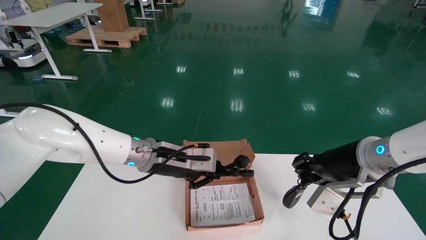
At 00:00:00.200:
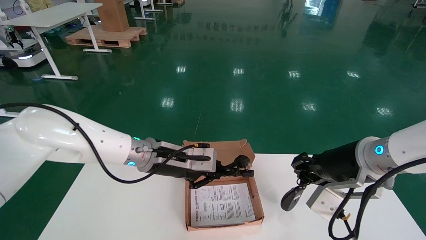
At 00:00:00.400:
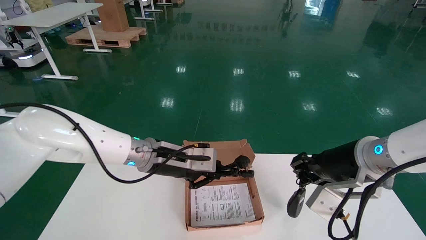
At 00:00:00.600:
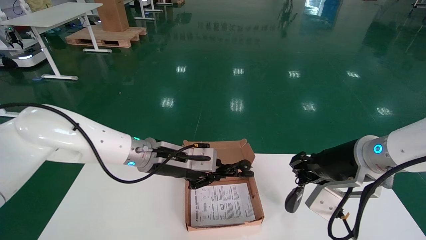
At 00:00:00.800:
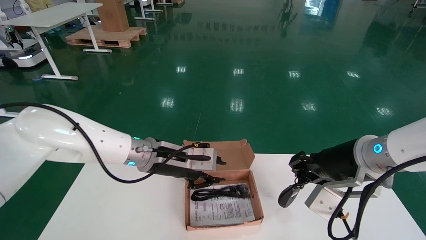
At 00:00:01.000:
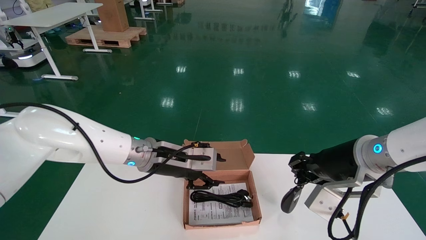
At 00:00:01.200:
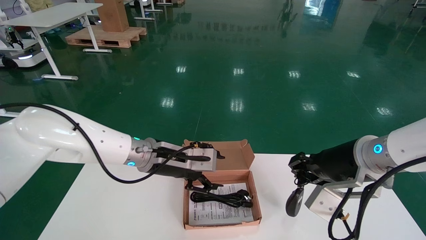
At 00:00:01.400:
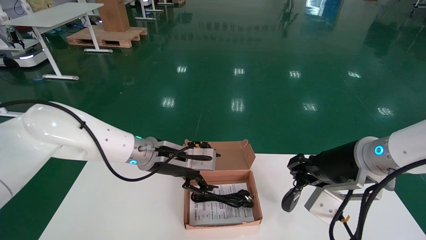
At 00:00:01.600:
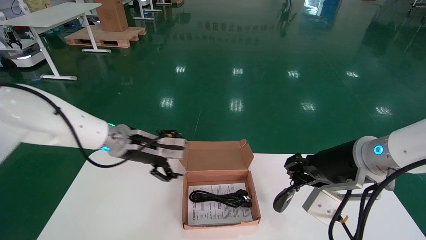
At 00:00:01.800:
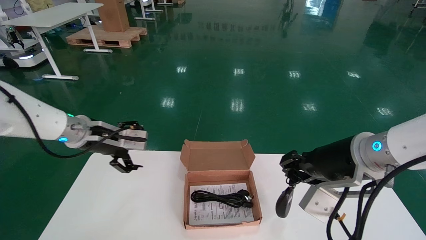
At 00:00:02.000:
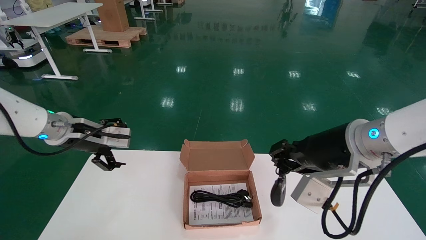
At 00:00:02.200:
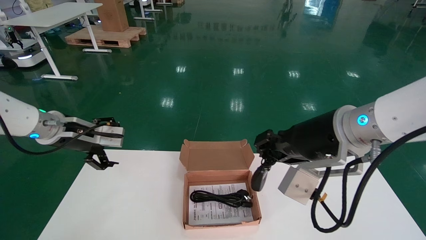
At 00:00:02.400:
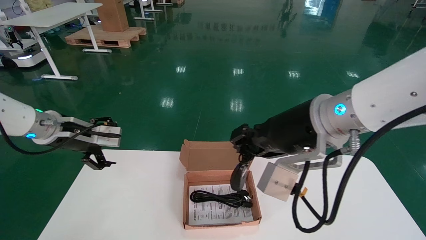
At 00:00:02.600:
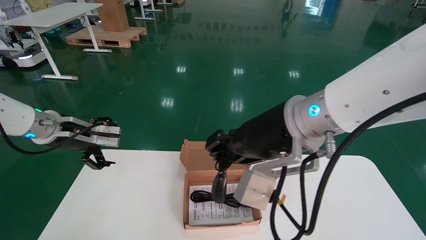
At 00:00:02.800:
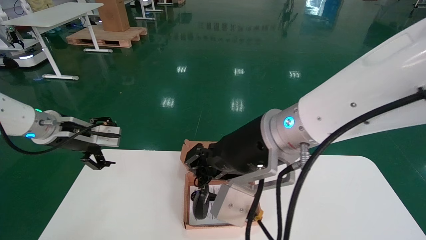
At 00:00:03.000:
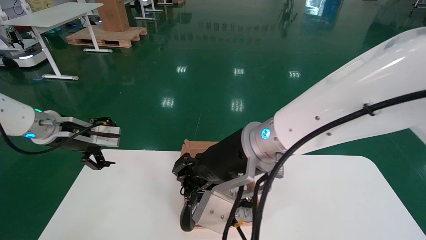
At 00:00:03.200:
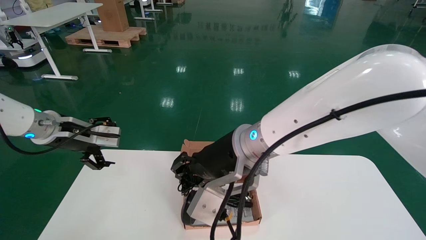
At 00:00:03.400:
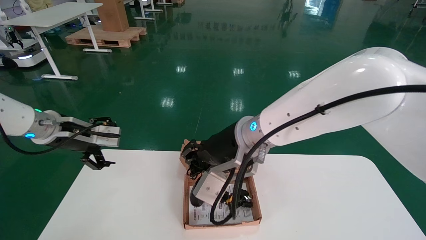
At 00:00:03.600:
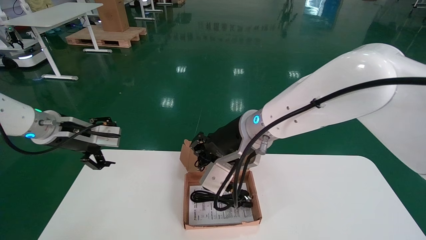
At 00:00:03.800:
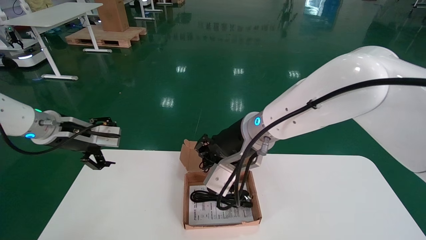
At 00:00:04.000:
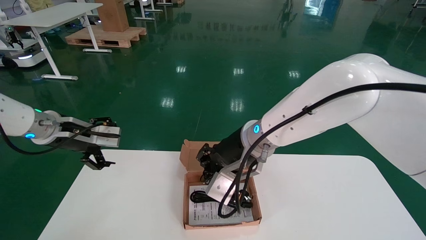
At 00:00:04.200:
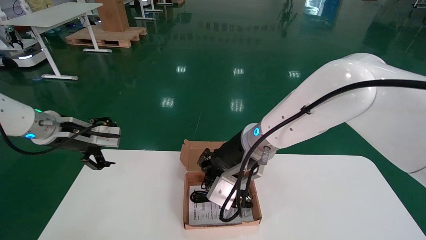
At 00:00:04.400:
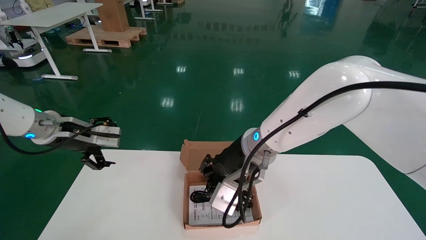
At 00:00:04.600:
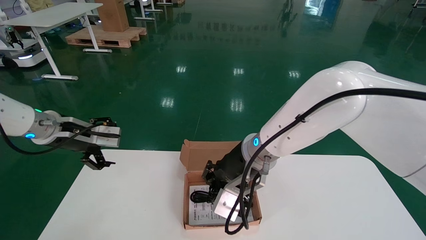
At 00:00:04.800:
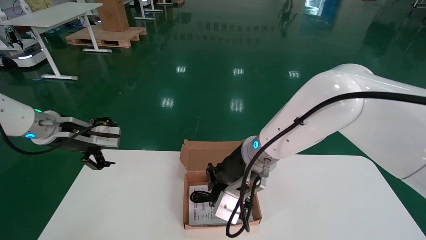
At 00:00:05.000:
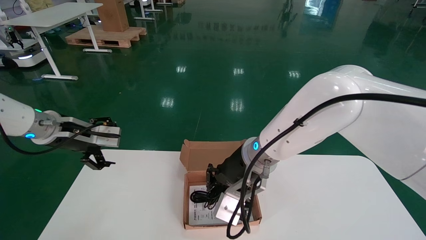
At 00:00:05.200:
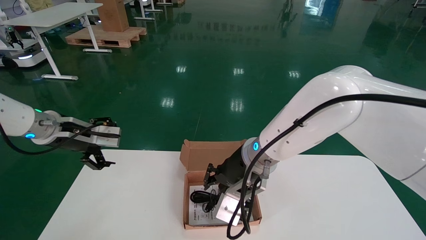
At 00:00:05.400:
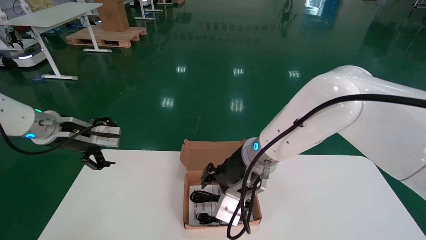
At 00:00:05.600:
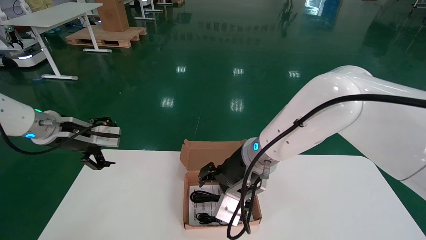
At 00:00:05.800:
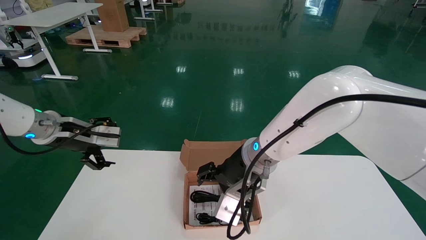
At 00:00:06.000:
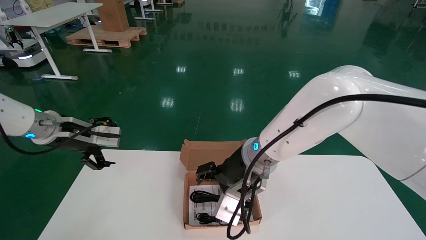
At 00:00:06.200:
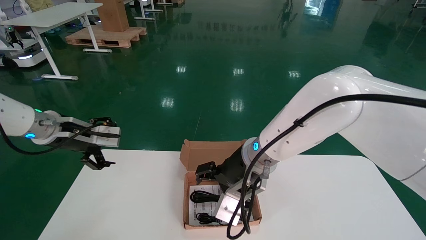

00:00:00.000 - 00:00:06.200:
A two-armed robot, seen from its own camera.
Step, 00:00:00.000 - 00:00:06.200: Place the mouse and power cord into the box.
00:00:00.000 - 00:00:01.600: Both grippers stay about where they are.
00:00:01.600 - 00:00:03.200: The right gripper goes roughly 15 cm to the left and upward. The left gripper moves to the left, roughly 20 cm, and opens up.
00:00:03.200 - 00:00:04.600: The right gripper travels forward and to the left by about 10 cm.
00:00:04.600 - 00:00:06.200: The grippers make only small movements.
